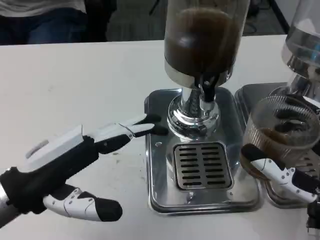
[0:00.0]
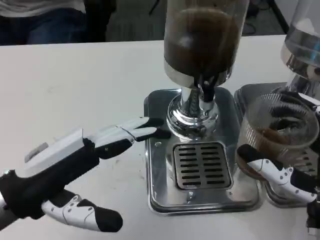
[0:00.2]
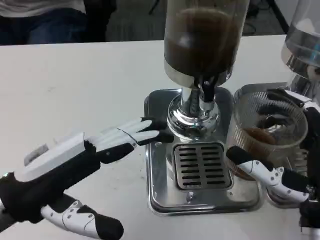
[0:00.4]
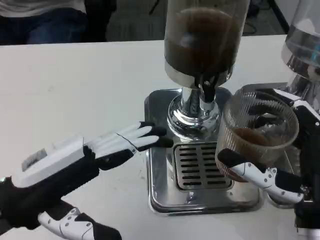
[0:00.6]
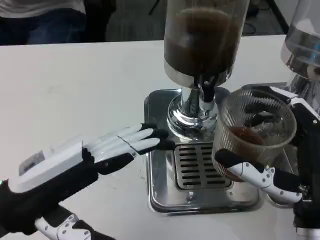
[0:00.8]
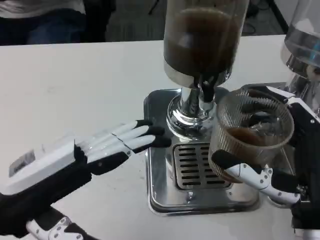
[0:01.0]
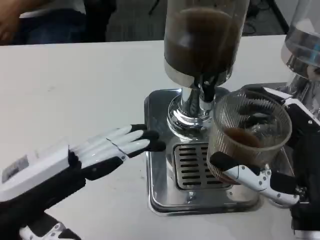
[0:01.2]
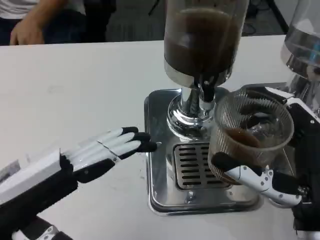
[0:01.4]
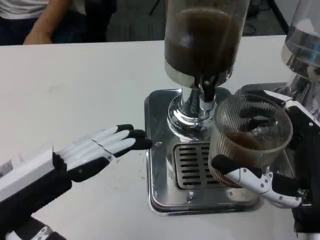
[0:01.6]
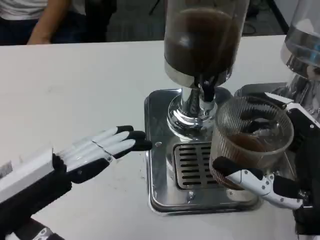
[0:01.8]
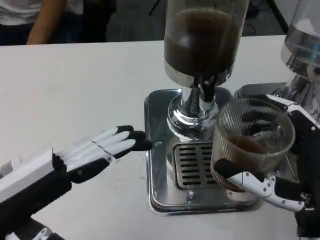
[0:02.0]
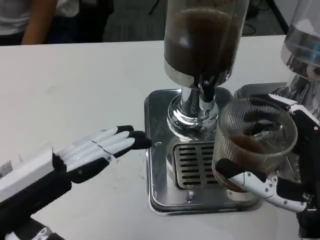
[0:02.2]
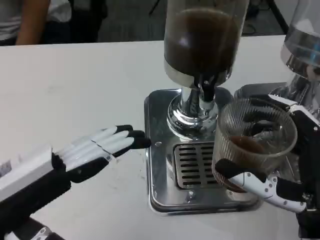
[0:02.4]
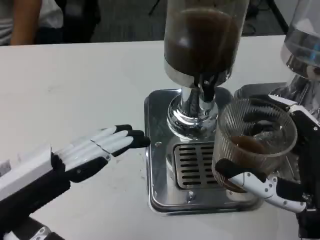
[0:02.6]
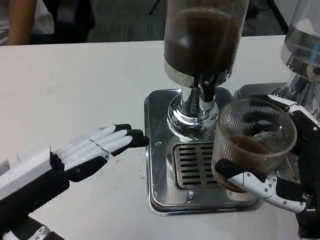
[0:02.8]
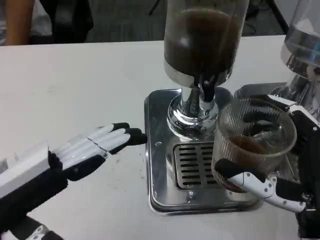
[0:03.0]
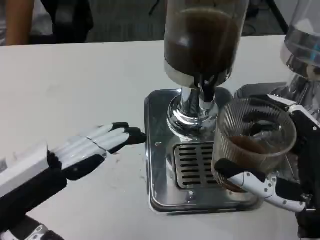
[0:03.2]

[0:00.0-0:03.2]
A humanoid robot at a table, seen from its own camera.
Task of the whole recording: Grasp the cup under the faucet to collect the drink, then remove the cup.
0:00.0 to 0:01.6: The left hand moves approximately 5 cm.
0:01.6 to 0:03.2: The two hands keep their place.

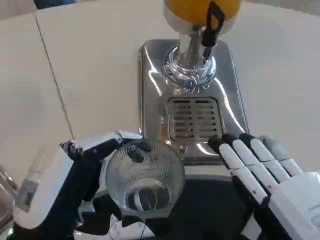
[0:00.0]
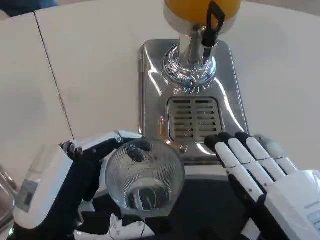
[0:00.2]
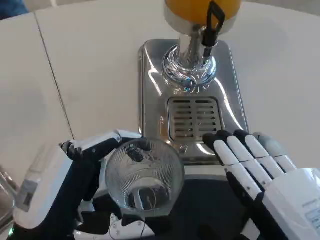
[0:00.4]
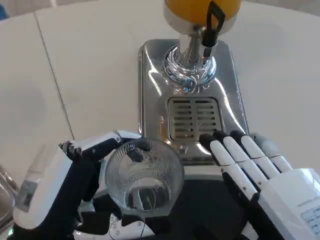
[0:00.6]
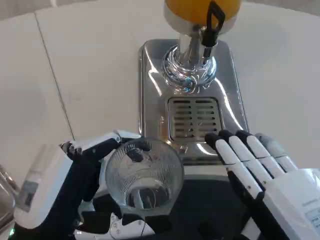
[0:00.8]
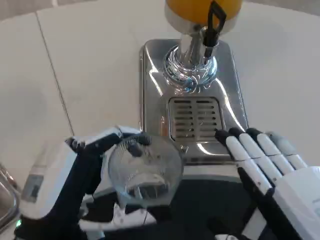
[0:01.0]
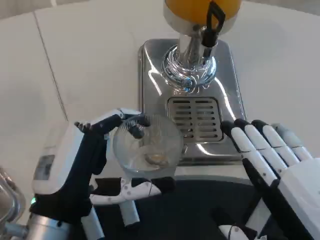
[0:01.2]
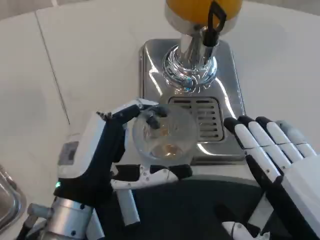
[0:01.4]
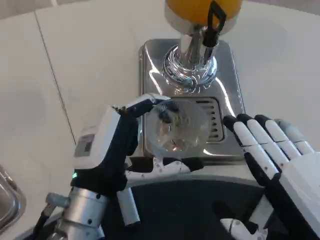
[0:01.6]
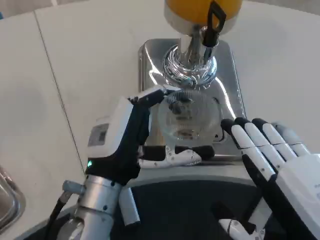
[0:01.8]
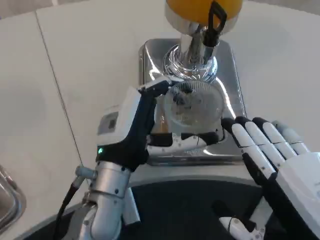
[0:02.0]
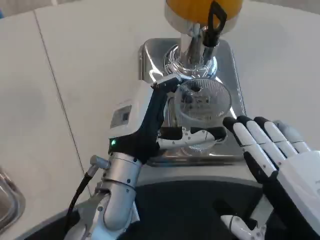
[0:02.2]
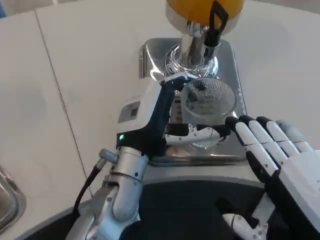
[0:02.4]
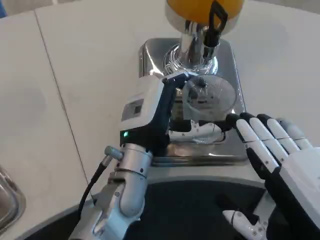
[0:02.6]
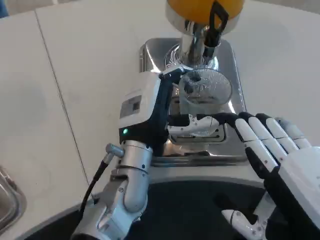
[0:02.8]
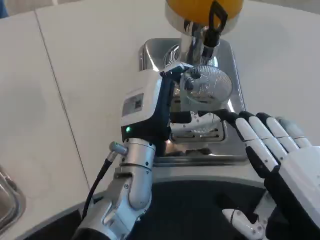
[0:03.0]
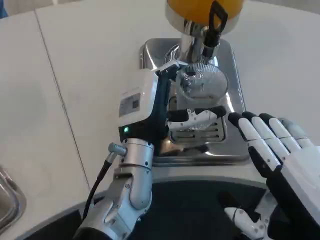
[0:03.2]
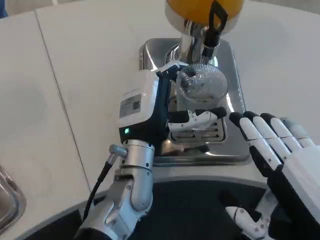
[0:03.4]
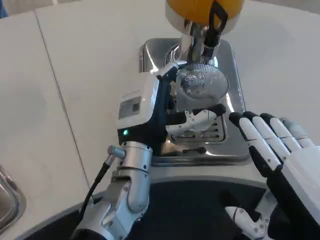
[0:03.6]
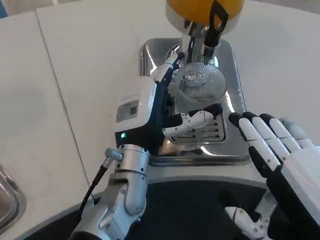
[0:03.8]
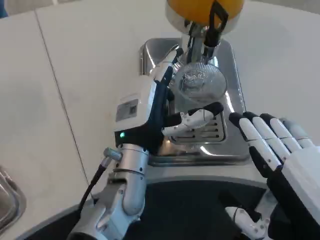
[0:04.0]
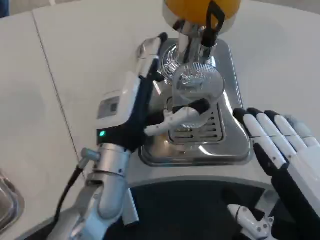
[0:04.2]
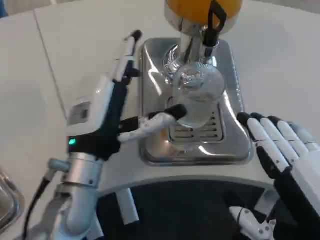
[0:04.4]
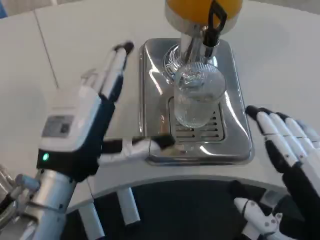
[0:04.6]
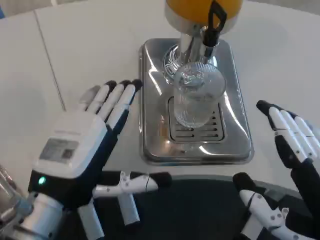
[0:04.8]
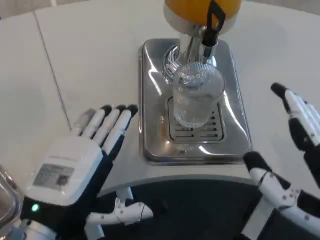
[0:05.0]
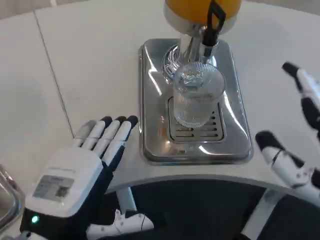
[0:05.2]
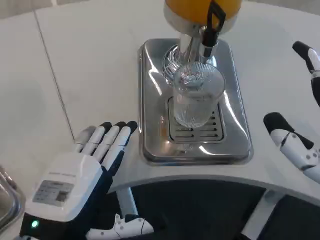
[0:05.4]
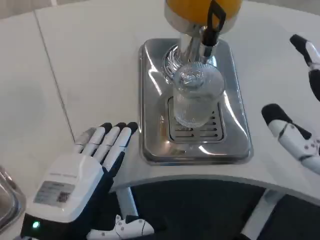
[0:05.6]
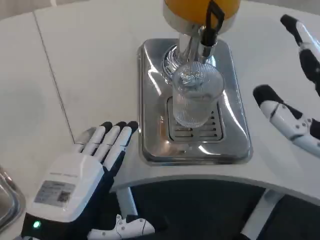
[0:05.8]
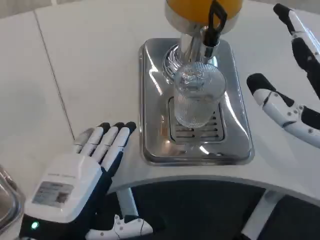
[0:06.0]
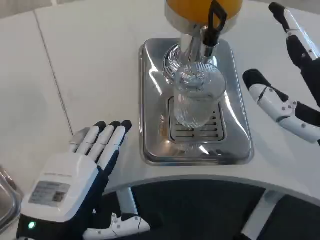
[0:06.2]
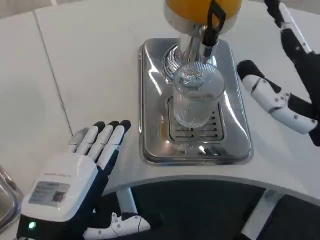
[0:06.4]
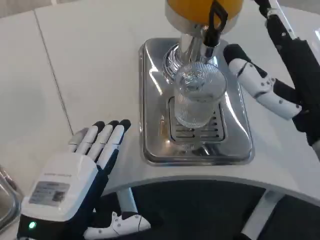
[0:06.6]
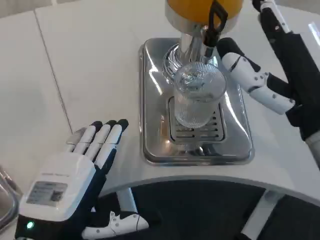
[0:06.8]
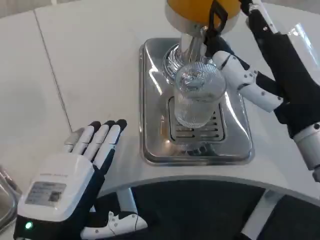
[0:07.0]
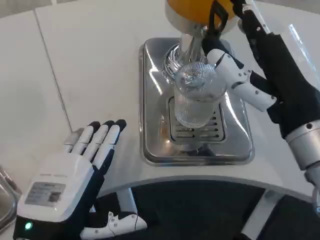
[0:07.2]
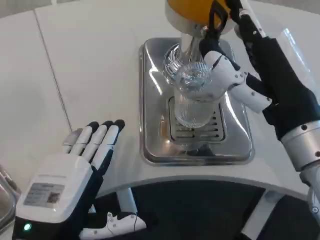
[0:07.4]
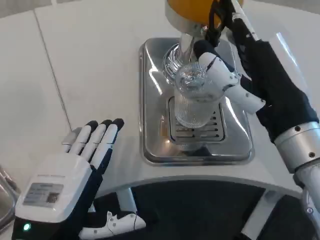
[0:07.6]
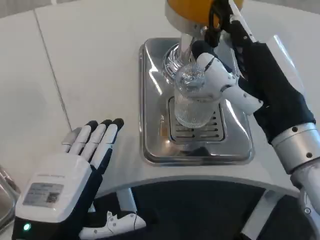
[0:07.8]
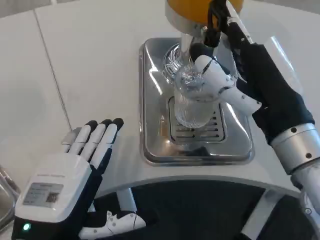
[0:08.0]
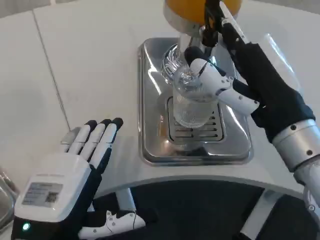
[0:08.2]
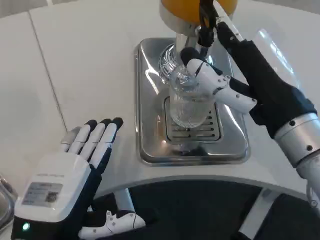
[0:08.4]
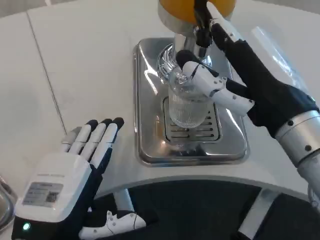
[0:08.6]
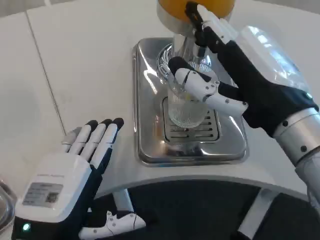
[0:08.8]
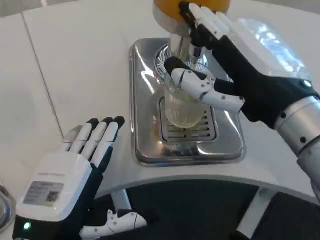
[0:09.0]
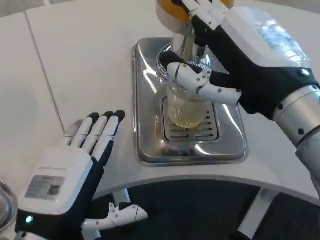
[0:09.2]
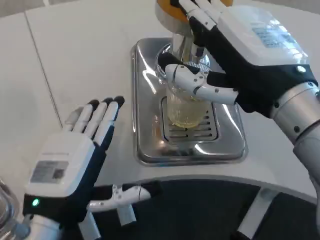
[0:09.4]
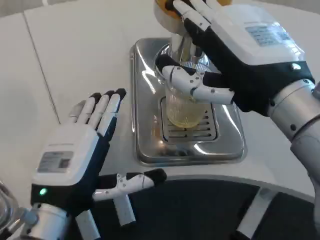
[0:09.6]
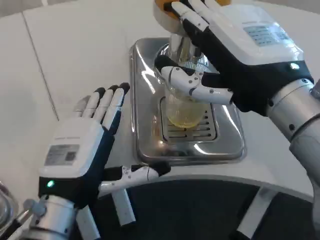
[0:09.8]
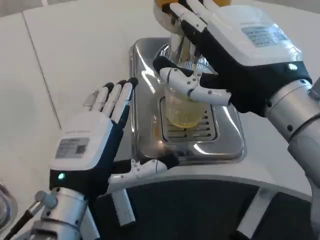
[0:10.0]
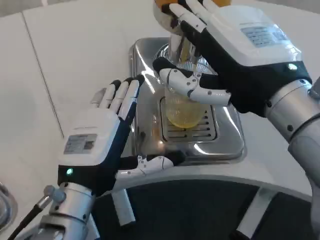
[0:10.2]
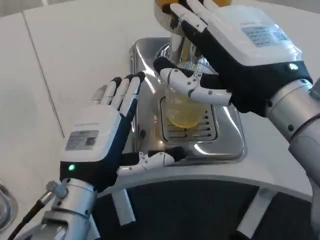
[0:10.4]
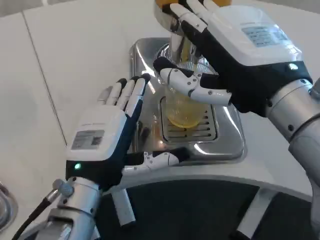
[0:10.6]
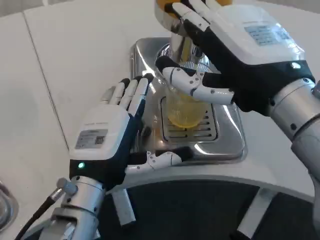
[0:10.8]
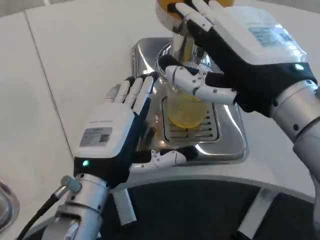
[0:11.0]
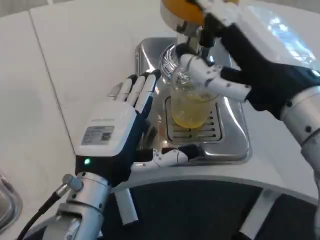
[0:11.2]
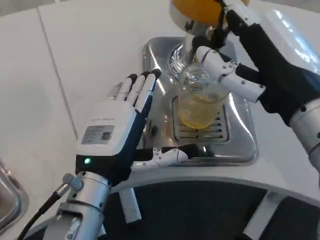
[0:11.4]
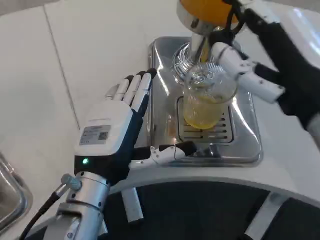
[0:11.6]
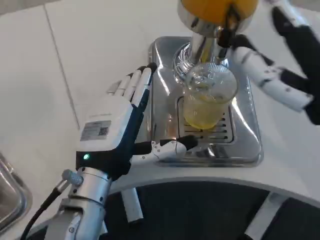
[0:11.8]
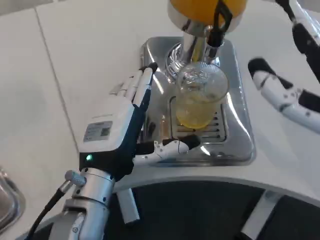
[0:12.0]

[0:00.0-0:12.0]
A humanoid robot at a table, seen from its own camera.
Task of the whole recording: Grasp the cup under the faucet to collect the drink, then remove the cup.
0:00.0 to 0:01.6: The left hand moves forward and to the right, approximately 10 cm.
0:01.6 to 0:03.0: The left hand is displaced forward and to the right by approximately 10 cm.
0:03.0 to 0:04.4: The left hand goes some 10 cm to the left.
0:04.4 to 0:06.0: The left hand heads backward, covering some 10 cm; the right hand travels forward by roughly 10 cm.
0:06.0 to 0:07.6: The right hand shifts some 10 cm to the left and forward.
0:07.6 to 0:09.0: The right hand ends up about 5 cm from where it was.
0:09.0 to 0:10.4: The left hand moves forward, roughly 10 cm.
0:10.4 to 0:12.0: The right hand moves to the right and backward, roughly 10 cm.

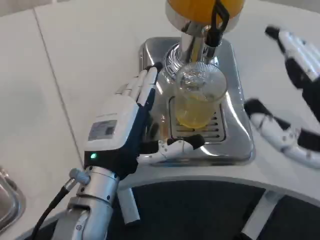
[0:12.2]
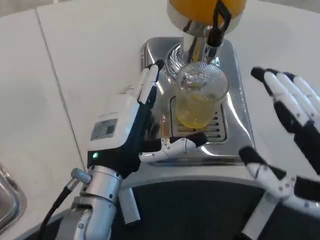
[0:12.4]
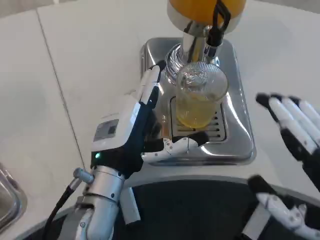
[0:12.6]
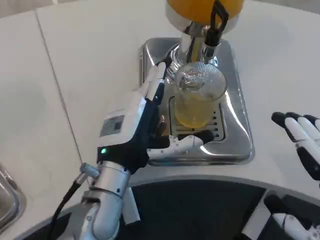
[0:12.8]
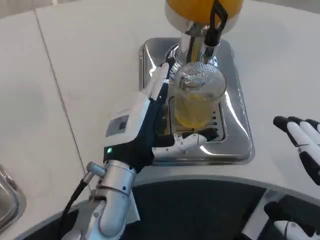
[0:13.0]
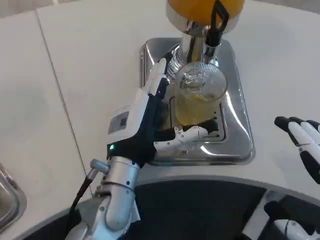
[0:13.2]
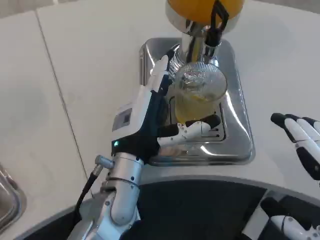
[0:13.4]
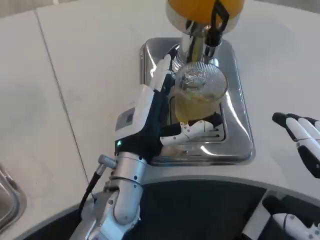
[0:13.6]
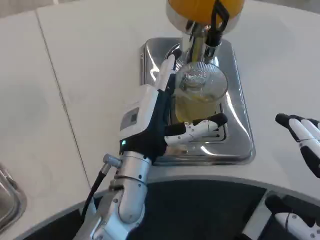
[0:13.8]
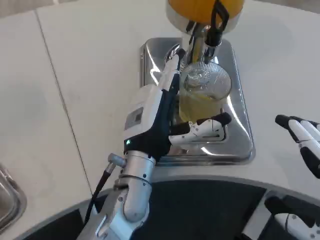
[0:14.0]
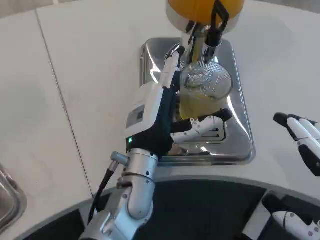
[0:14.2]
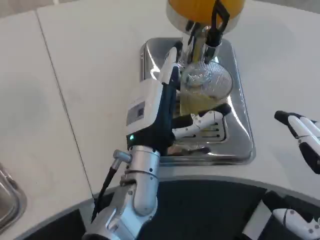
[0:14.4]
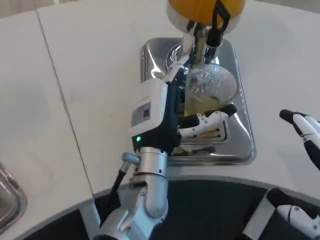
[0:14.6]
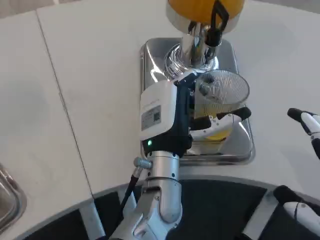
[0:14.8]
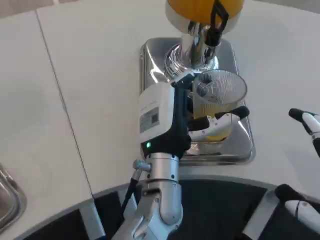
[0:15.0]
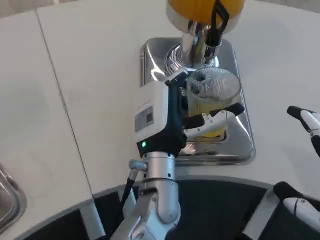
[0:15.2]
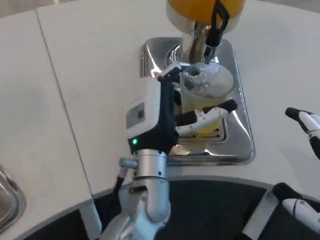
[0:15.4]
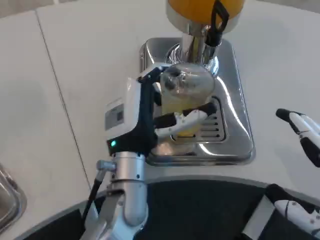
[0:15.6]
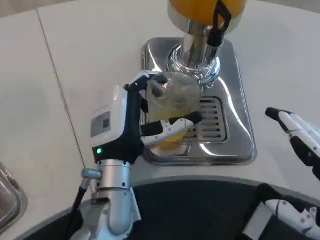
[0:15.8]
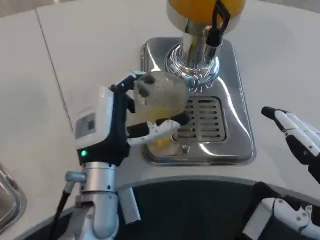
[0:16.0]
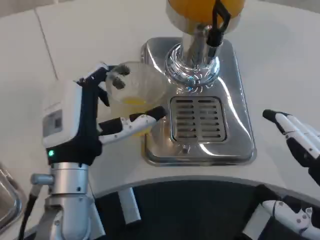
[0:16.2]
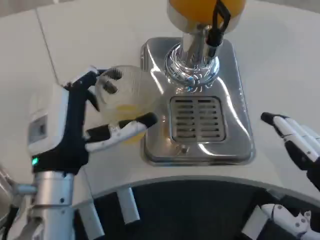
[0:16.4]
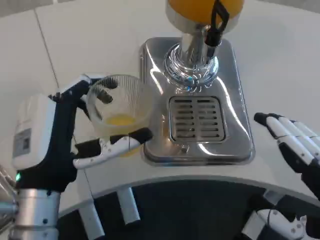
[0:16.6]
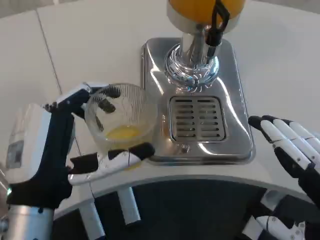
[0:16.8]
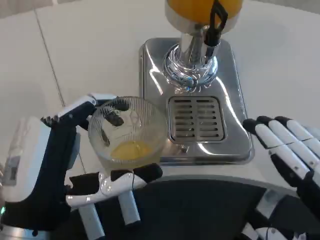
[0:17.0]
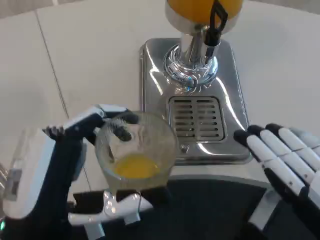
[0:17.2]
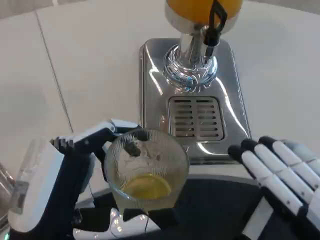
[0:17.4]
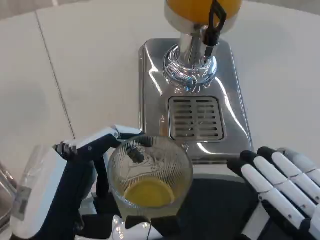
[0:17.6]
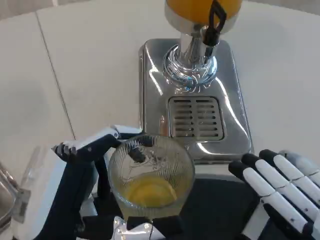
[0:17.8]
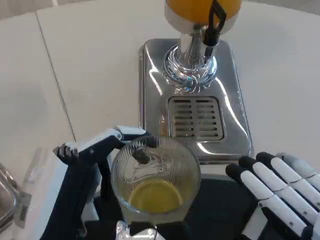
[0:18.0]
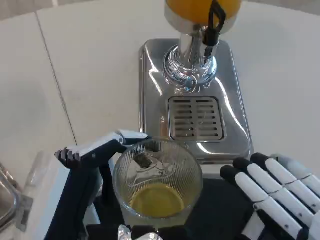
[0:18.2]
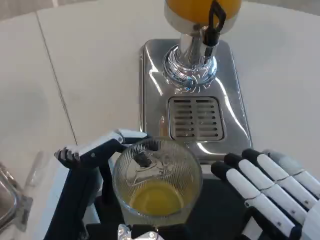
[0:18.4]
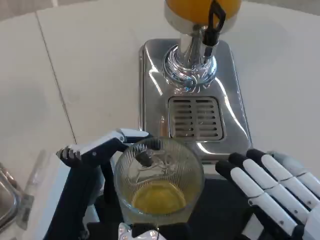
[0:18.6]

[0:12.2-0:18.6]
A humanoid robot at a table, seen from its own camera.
Task of the whole recording: Grasp the cup under the faucet to collect the drink, then remove the cup.
0:12.2 to 0:13.8: The left hand shifts by some 5 cm, while the right hand goes roughly 5 cm backward.
0:13.8 to 0:15.4: There are only small adjustments of the hands.
0:15.4 to 0:17.0: The left hand shifts some 20 cm backward and to the left.
